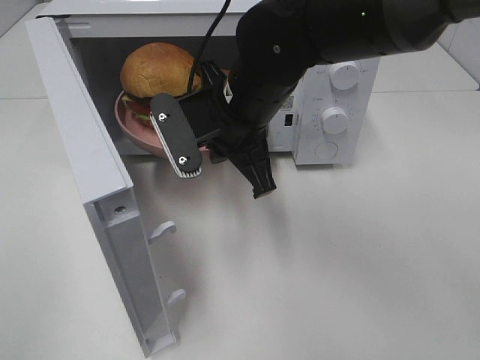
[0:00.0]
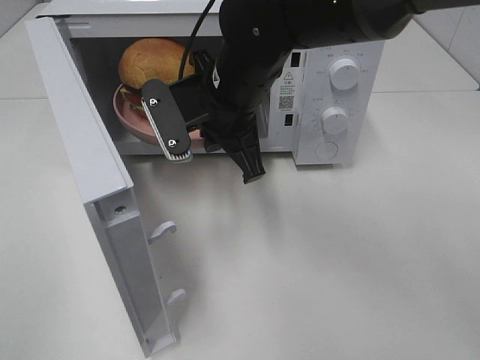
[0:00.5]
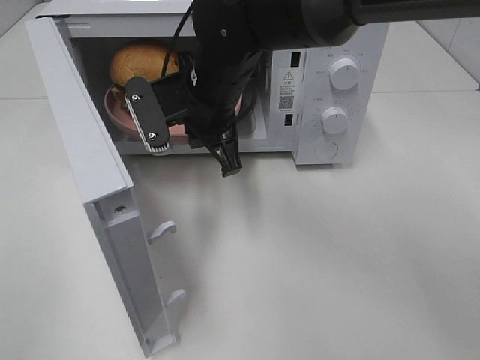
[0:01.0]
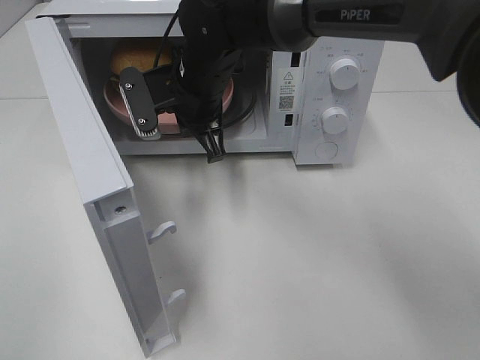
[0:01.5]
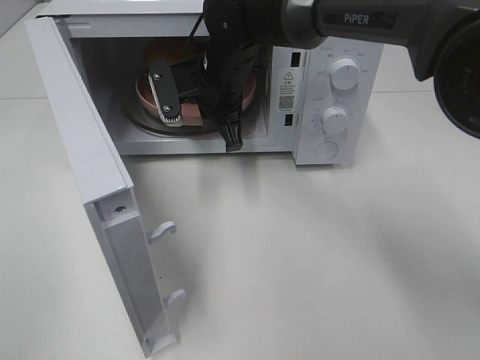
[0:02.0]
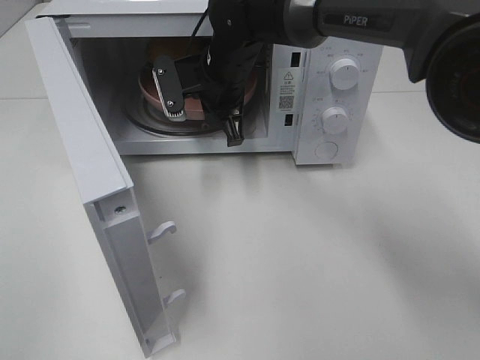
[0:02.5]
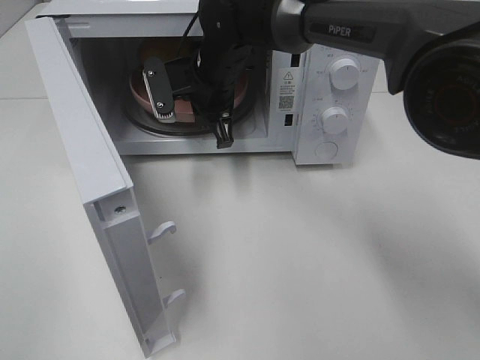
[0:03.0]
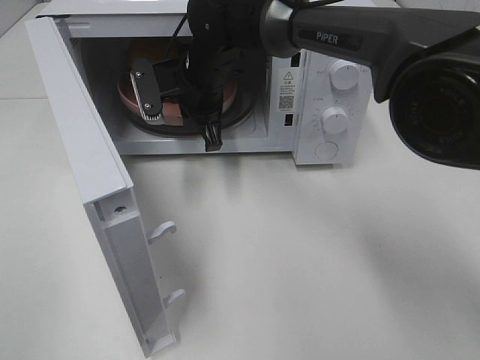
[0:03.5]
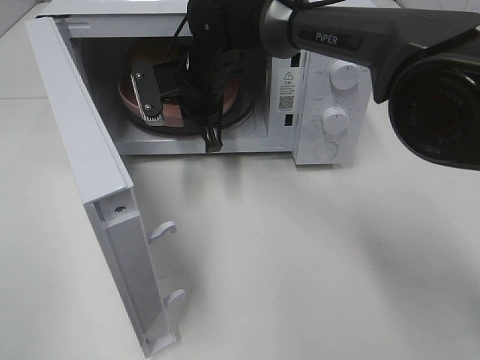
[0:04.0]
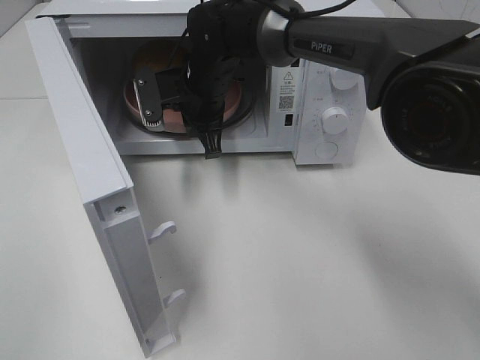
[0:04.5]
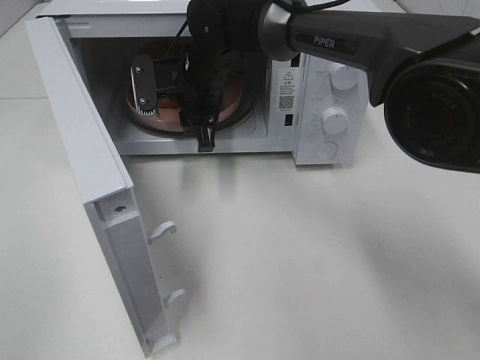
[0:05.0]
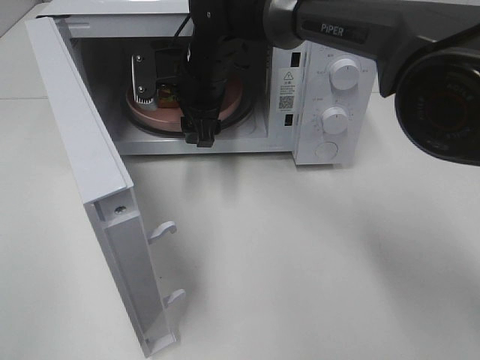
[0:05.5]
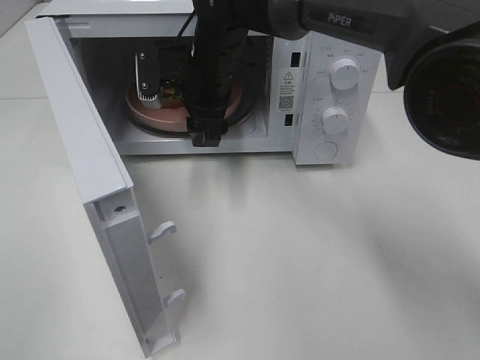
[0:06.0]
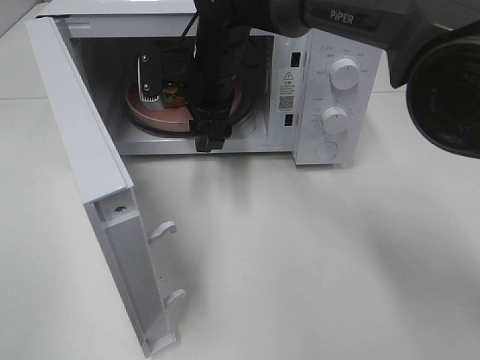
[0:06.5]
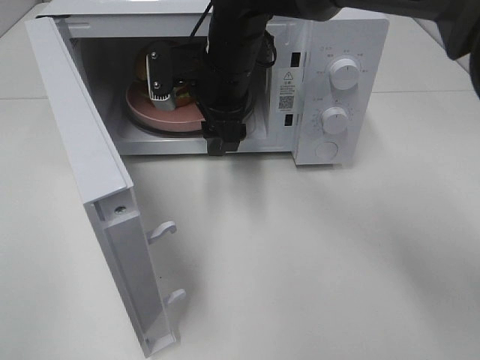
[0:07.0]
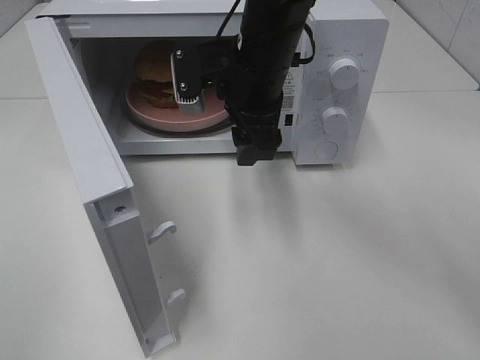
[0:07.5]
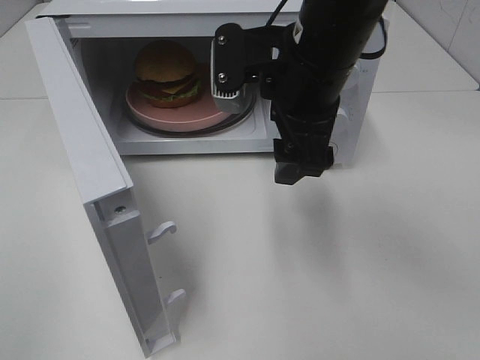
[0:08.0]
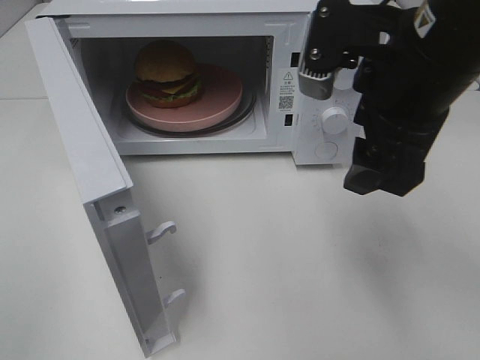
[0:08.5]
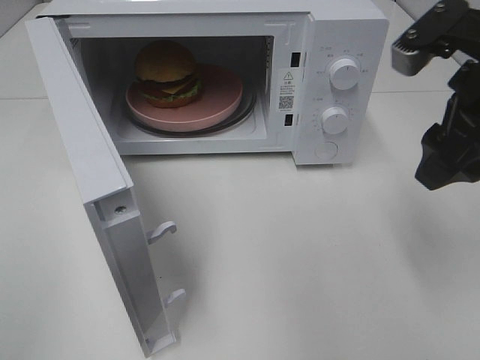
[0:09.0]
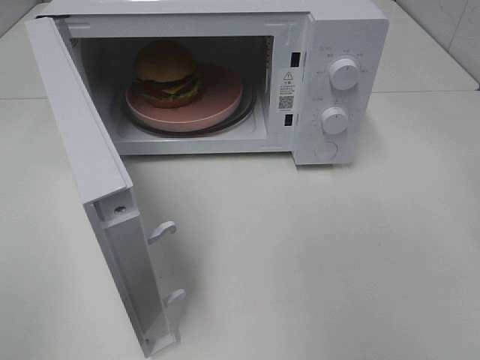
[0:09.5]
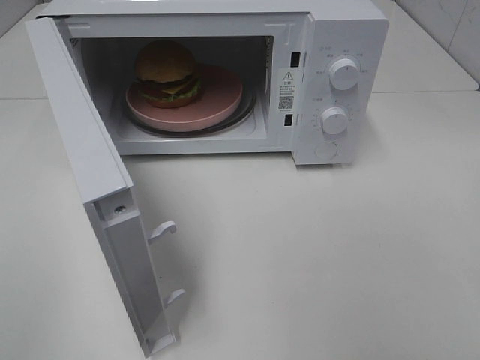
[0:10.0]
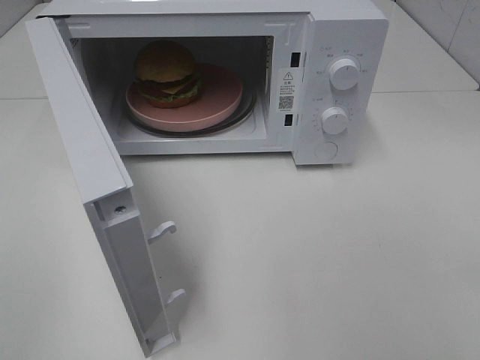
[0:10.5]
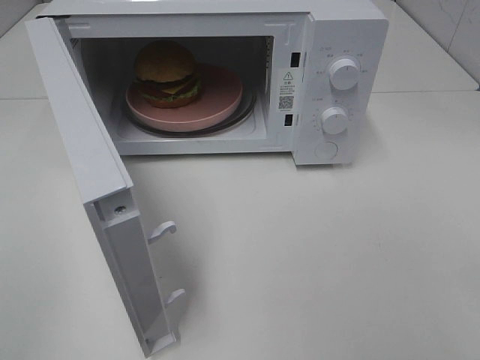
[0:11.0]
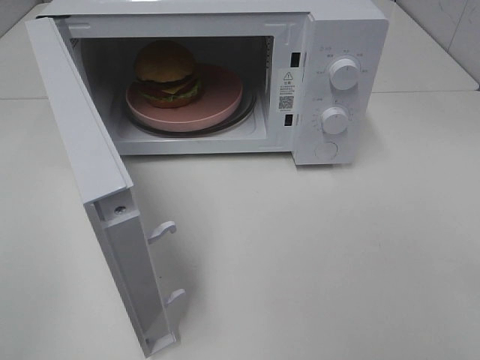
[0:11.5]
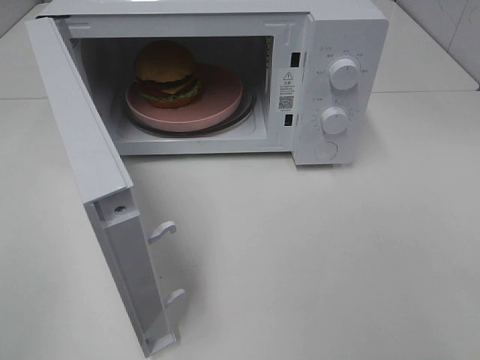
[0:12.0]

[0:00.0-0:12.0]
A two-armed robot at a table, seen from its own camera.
Task of the whole recording: Heat the burger.
Step, 0:00.0 to 0:04.5: Right hand: place the plate in the microwave.
0:00.0 to 0:02.0: The right gripper moves forward, roughly 10 cm.
0:02.0 to 0:04.0: The grippers move only a little.
0:04.0 to 0:06.0: The right gripper opens.
0:06.0 to 0:08.0: The right gripper shifts some 20 cm backward, to the right and upward.
0:08.0 to 0:10.0: The right gripper moves to the right and backward, approximately 30 cm.

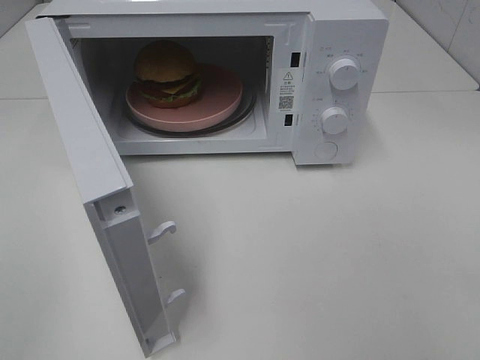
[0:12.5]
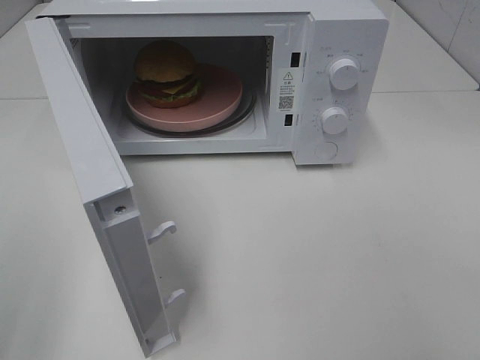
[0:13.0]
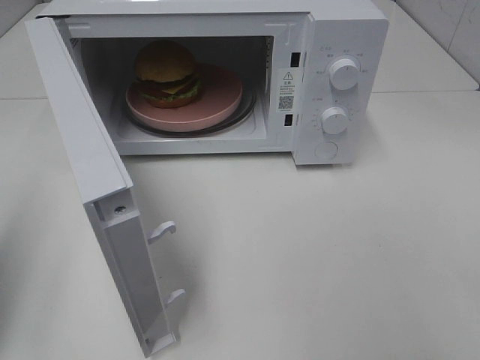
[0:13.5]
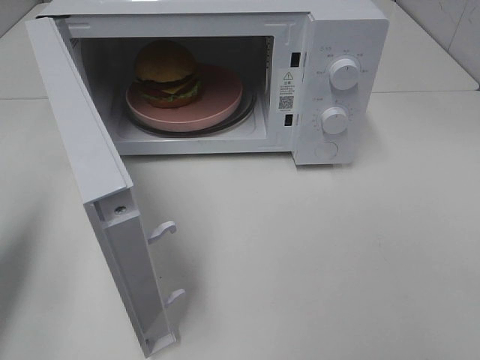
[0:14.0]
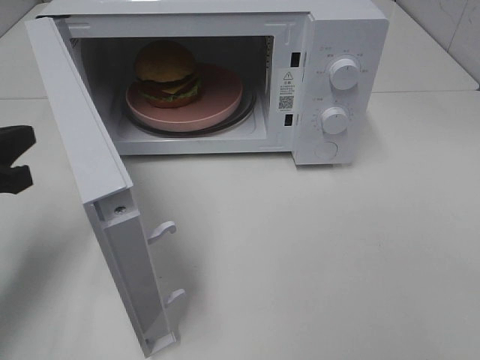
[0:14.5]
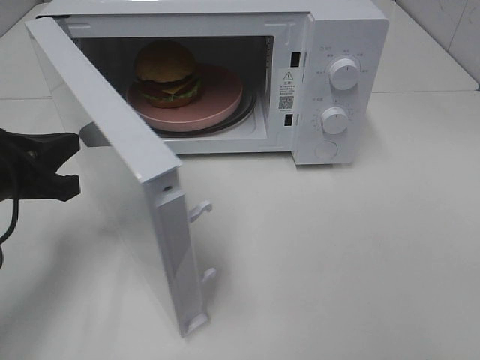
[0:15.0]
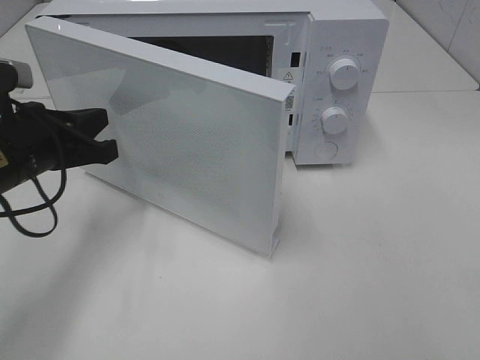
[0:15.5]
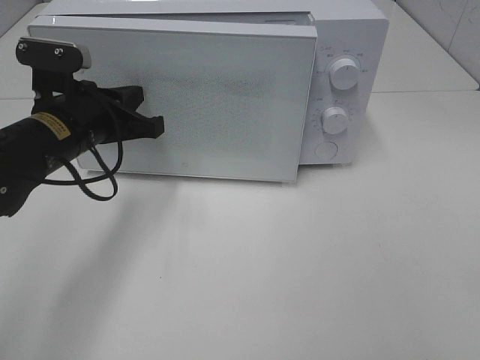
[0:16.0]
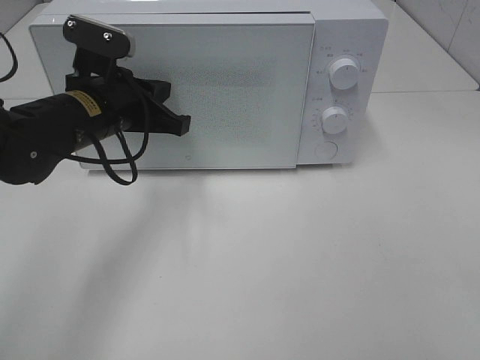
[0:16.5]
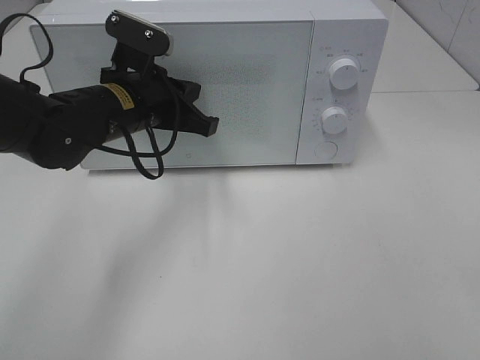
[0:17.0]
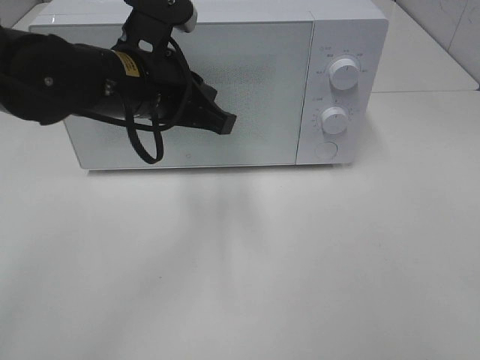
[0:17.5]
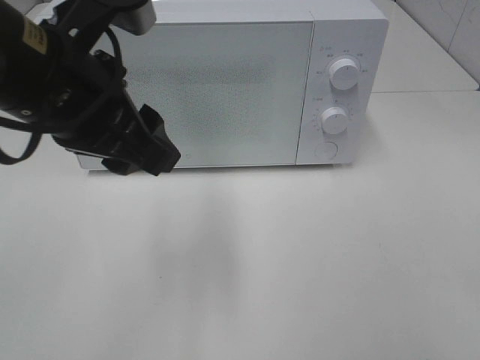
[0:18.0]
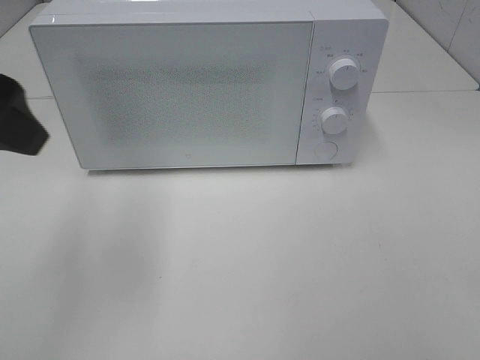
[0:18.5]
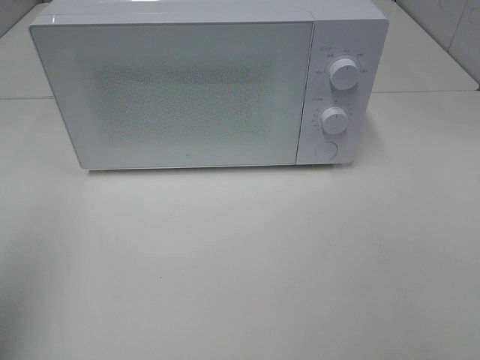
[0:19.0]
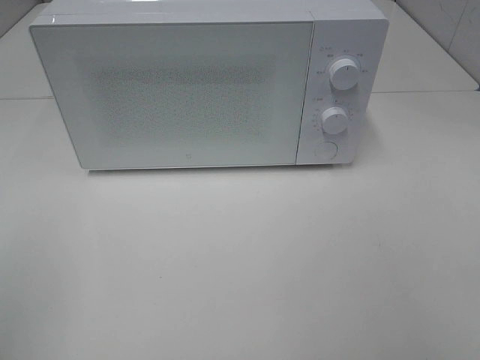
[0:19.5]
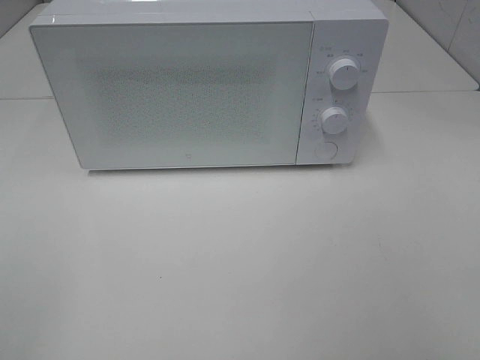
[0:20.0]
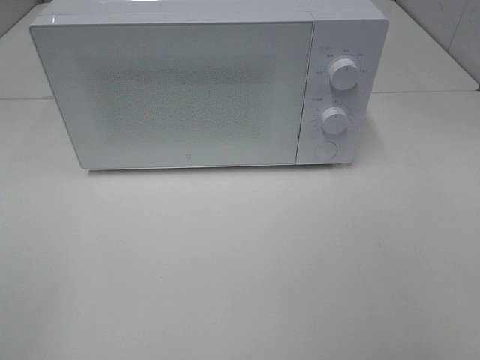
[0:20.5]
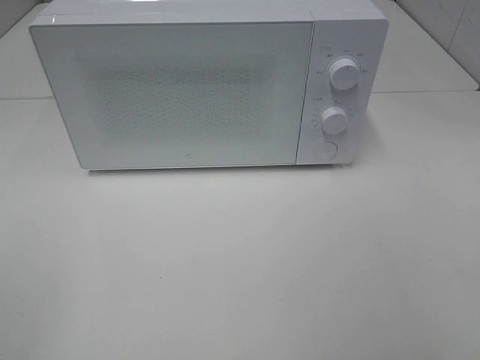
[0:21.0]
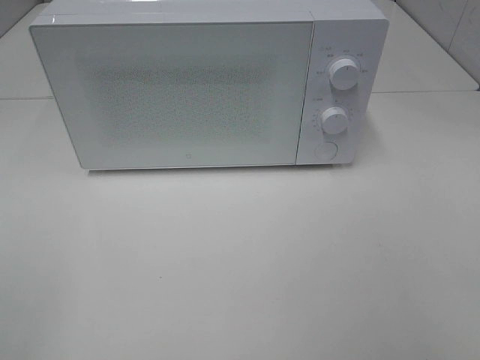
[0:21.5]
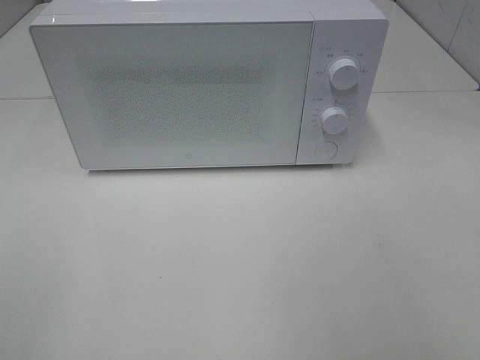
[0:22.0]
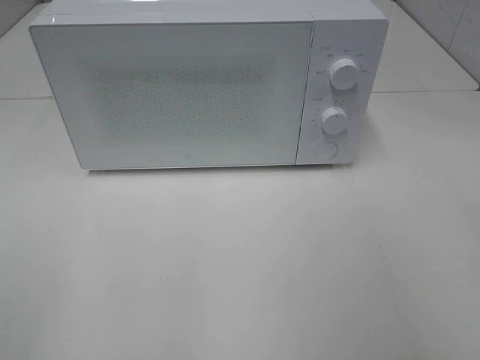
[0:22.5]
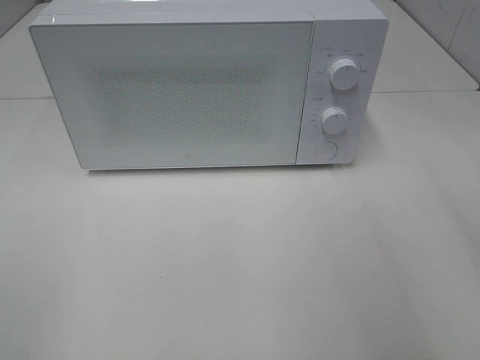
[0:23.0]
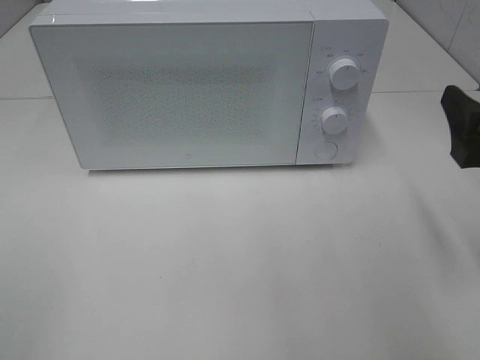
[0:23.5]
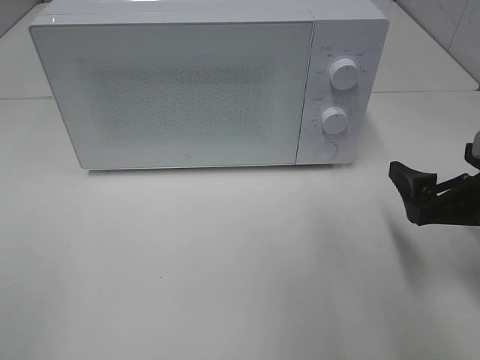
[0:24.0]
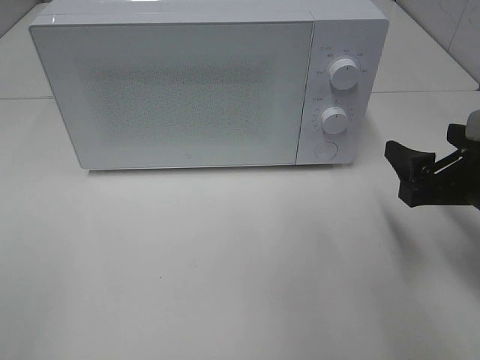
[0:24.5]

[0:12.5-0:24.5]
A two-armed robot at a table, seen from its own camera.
Task of the whole recording: Heat the burger.
Step, 0:12.5 to 0:16.5: Left hand: close the microwave door.
0:12.5 to 0:14.5: The left gripper travels forward and downward by approximately 25 cm, and closes.
0:14.5 to 0:16.5: The left gripper shifts approximately 15 cm to the right and forward.
0:16.5 to 0:18.5: The left gripper travels upward, backward and to the left by about 20 cm, and opens.
0:18.5 to 0:20.5: The left gripper is displaced backward and to the left by about 25 cm.
0:22.5 to 0:24.5: The right gripper travels downward and forward by some 15 cm.

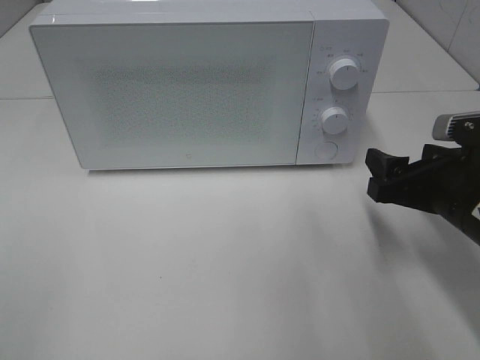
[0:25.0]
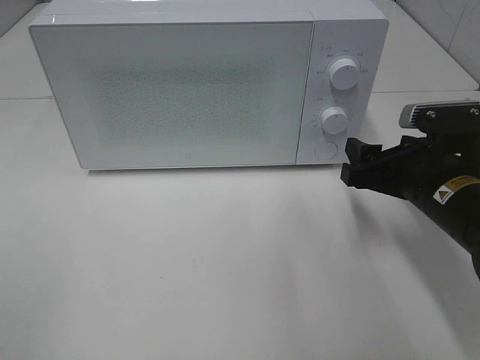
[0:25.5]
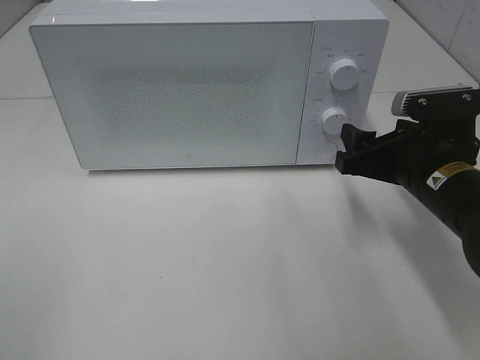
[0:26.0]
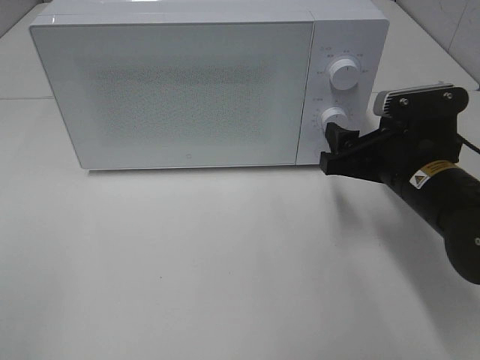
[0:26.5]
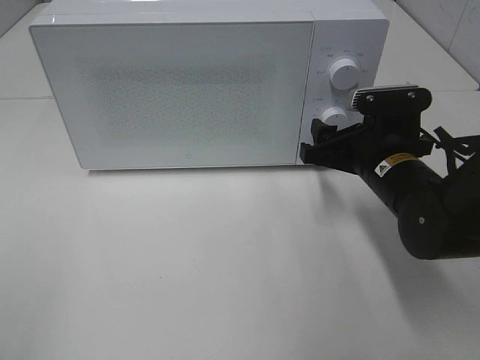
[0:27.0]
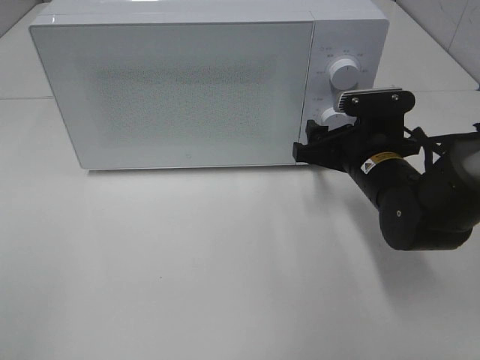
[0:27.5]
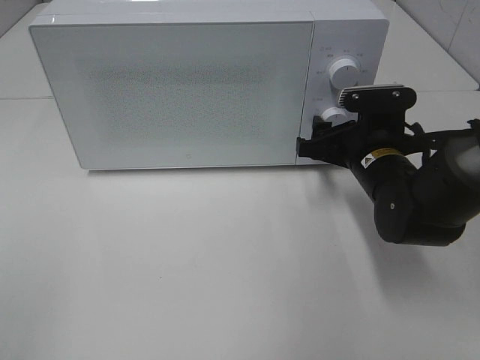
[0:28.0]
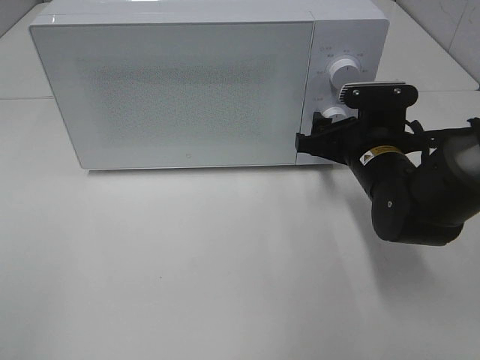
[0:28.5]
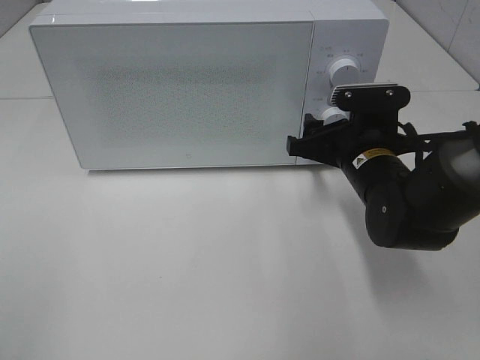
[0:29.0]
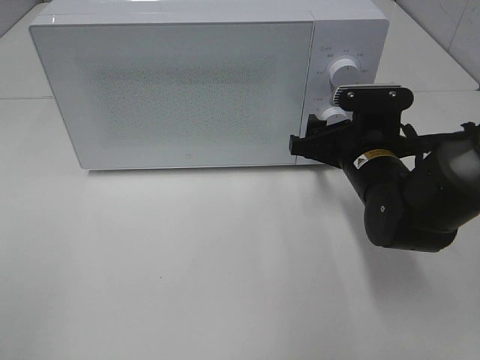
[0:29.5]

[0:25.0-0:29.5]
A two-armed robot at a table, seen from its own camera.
Task of the whole recording: Heat the burger.
0:25.0 to 0:27.0: The right gripper travels forward and to the left by roughly 10 cm.
0:27.0 to 0:29.5: The grippers move only a little.
